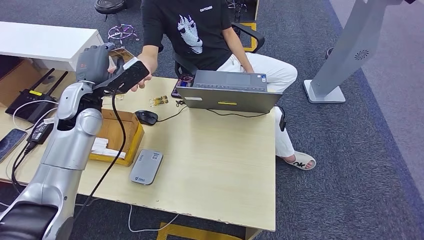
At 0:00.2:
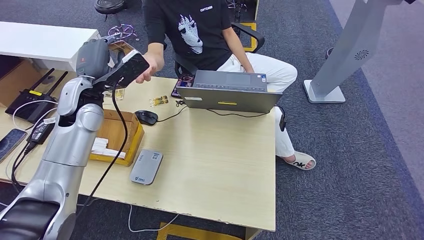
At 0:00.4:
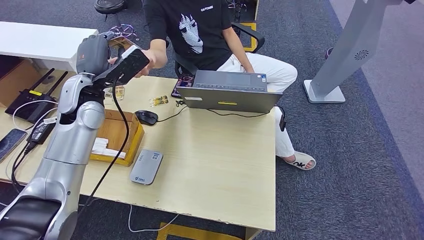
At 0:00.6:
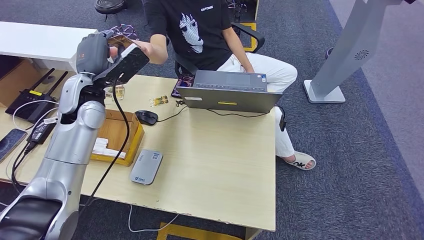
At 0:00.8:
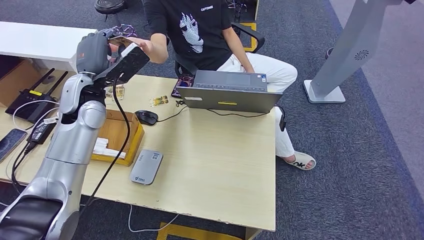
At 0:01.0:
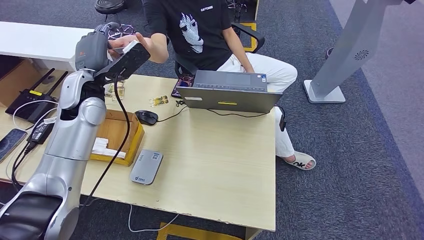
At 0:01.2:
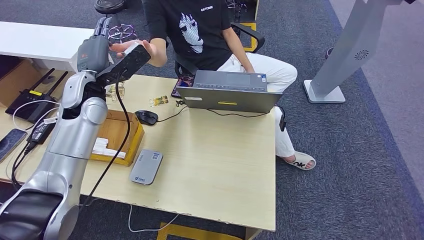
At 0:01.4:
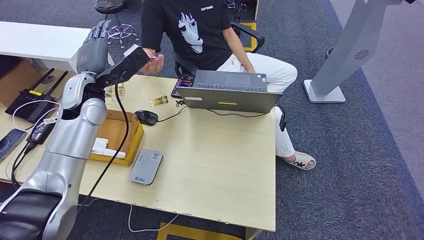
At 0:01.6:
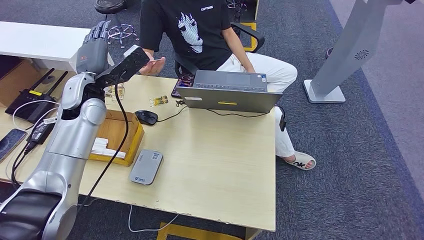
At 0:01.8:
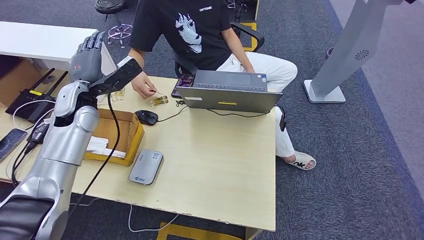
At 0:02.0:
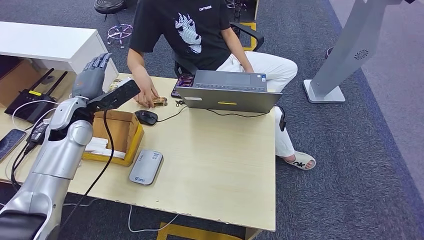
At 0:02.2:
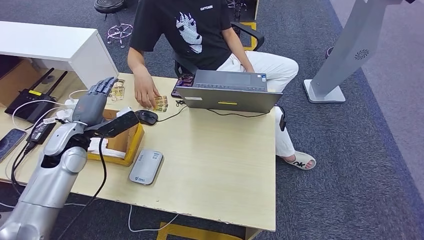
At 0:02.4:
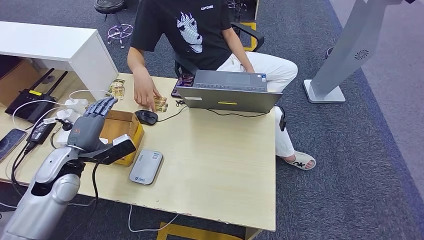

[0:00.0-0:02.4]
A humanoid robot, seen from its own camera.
Step, 0:00.0 to 0:02.2: Hand the room key to the person.
0:00.0 to 0:01.2: The hands move only a little.
0:01.2 to 0:02.4: The left hand travels backward, downward and to the left by some 20 cm.

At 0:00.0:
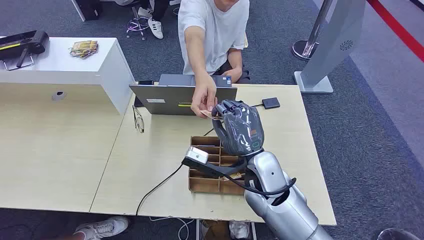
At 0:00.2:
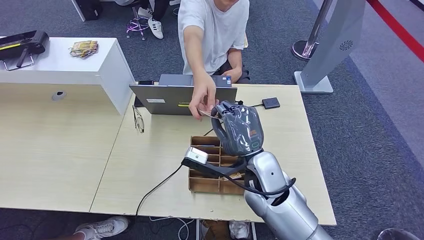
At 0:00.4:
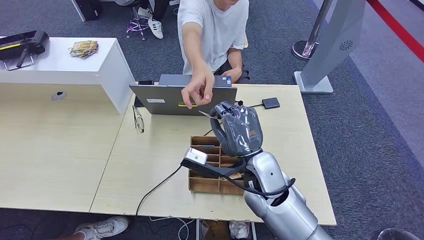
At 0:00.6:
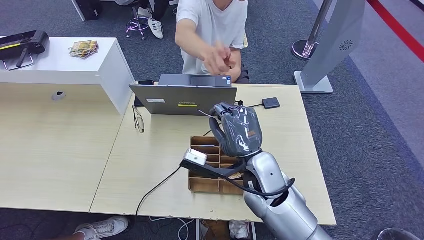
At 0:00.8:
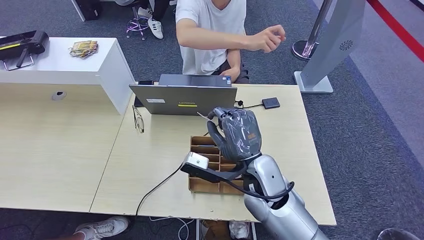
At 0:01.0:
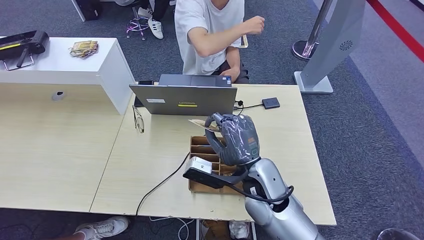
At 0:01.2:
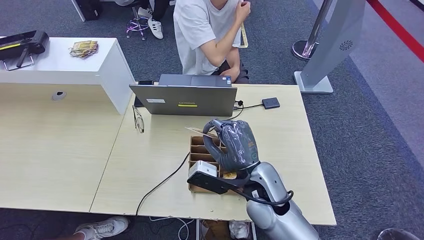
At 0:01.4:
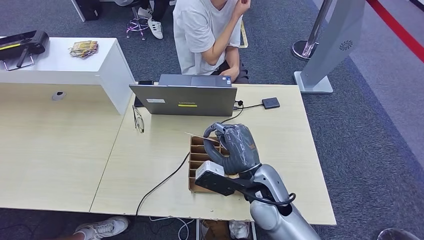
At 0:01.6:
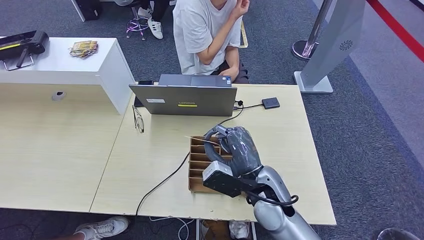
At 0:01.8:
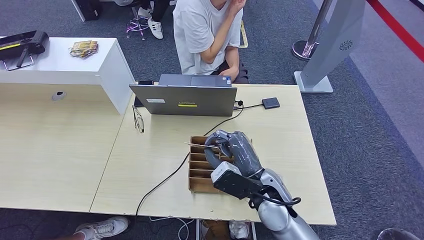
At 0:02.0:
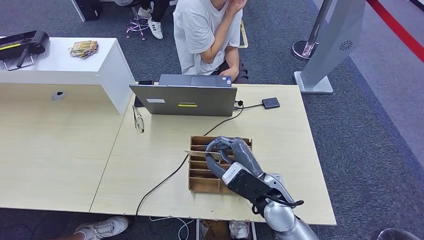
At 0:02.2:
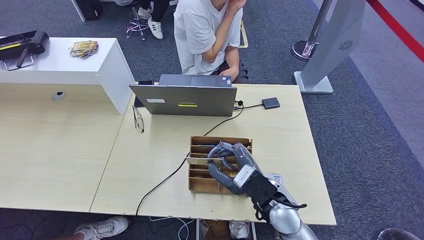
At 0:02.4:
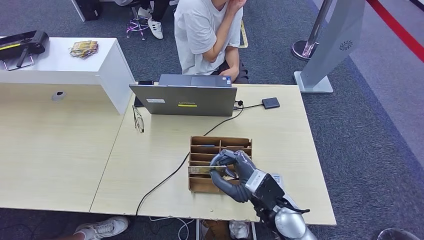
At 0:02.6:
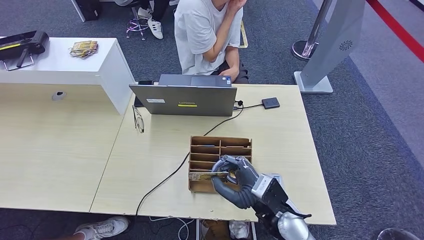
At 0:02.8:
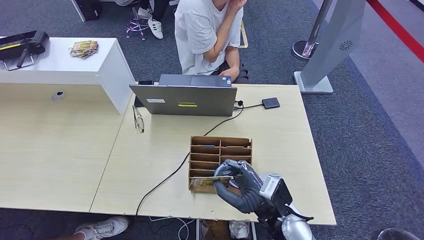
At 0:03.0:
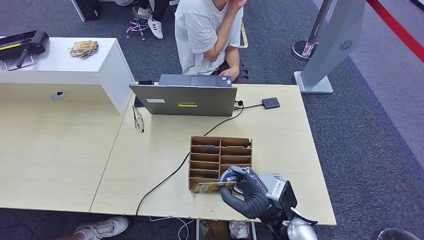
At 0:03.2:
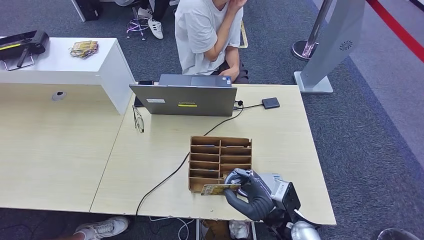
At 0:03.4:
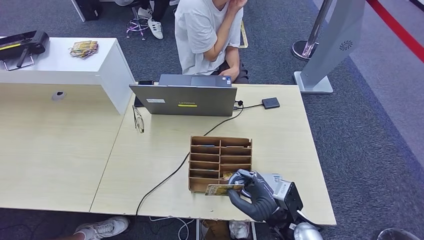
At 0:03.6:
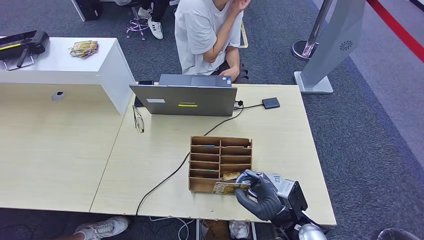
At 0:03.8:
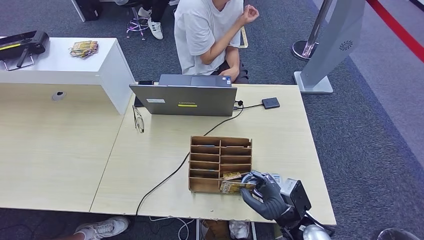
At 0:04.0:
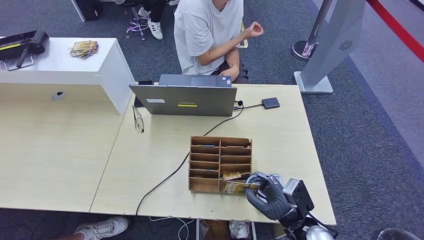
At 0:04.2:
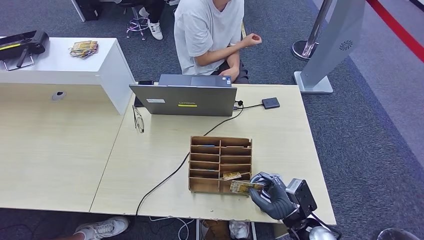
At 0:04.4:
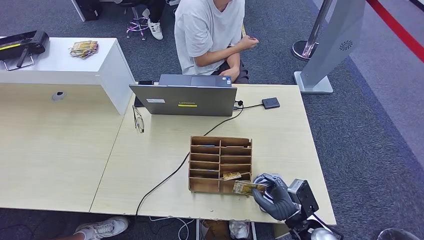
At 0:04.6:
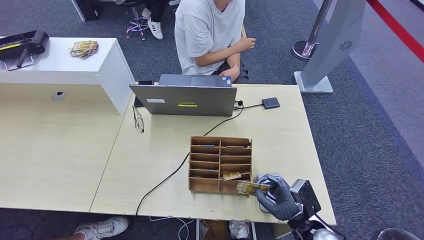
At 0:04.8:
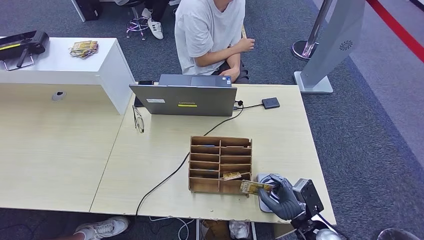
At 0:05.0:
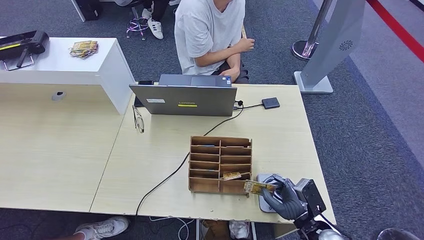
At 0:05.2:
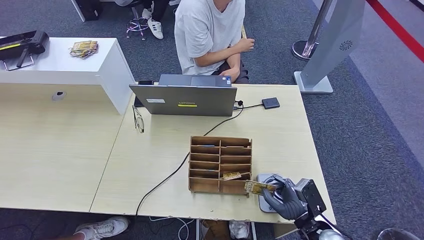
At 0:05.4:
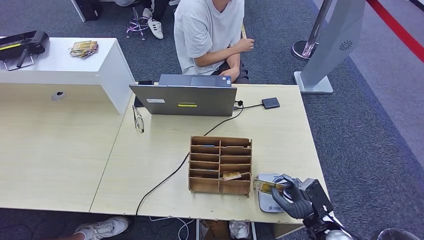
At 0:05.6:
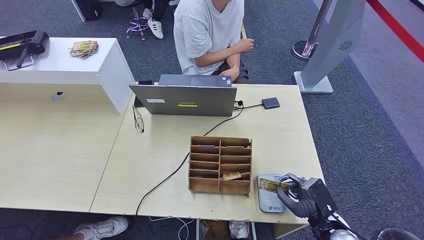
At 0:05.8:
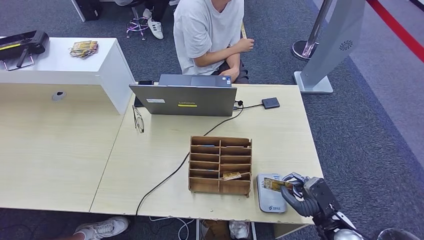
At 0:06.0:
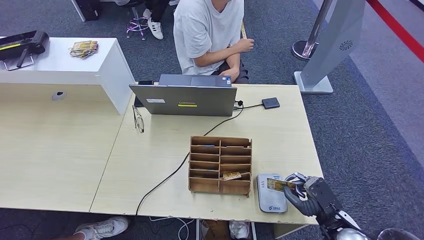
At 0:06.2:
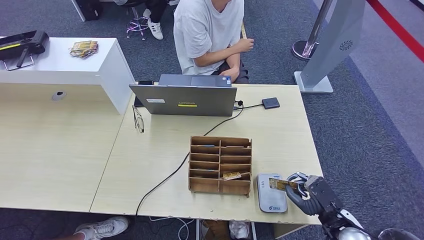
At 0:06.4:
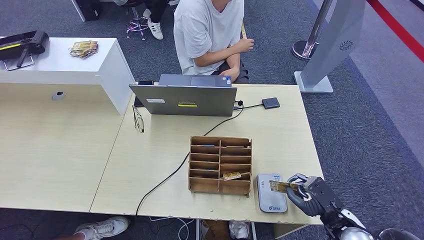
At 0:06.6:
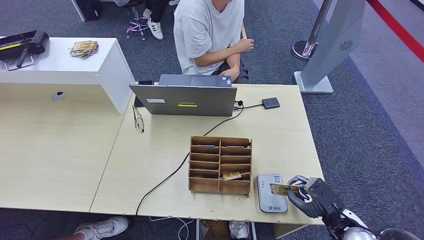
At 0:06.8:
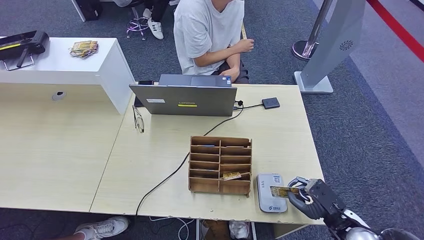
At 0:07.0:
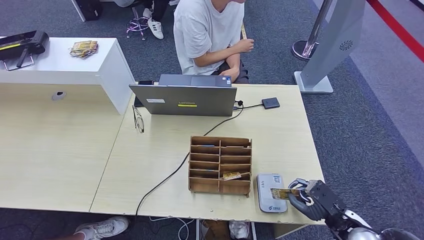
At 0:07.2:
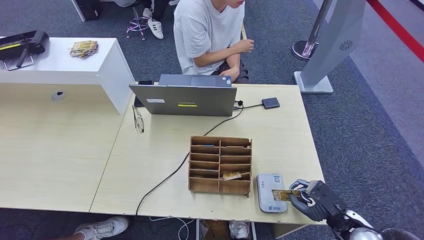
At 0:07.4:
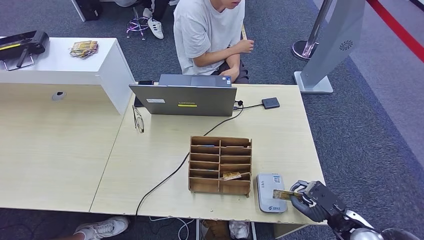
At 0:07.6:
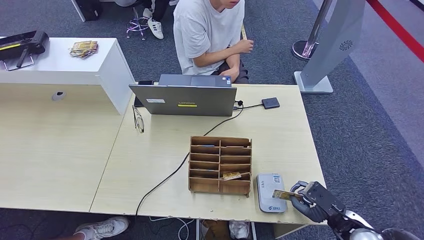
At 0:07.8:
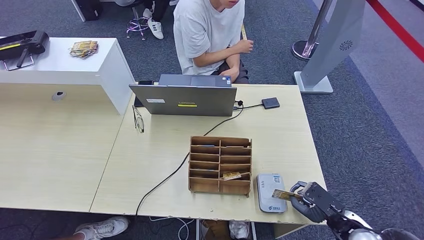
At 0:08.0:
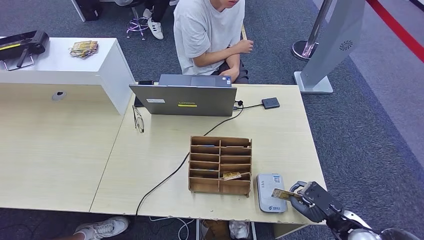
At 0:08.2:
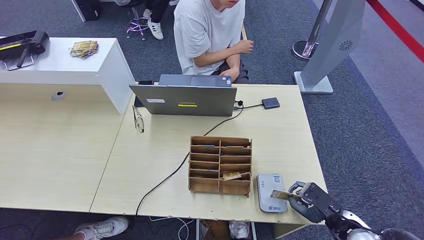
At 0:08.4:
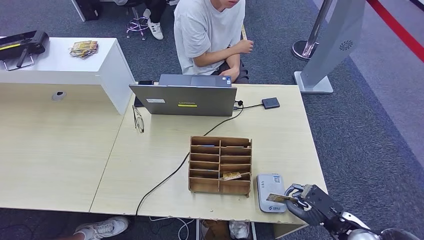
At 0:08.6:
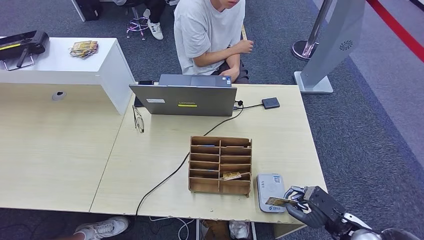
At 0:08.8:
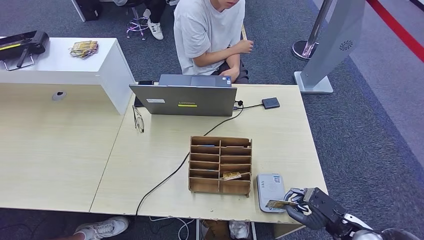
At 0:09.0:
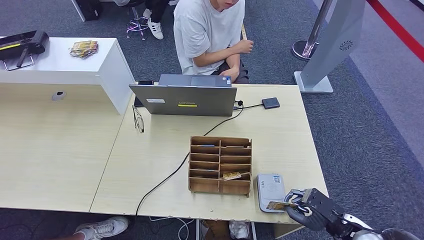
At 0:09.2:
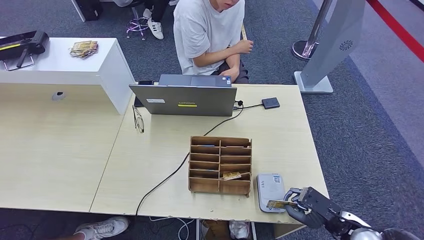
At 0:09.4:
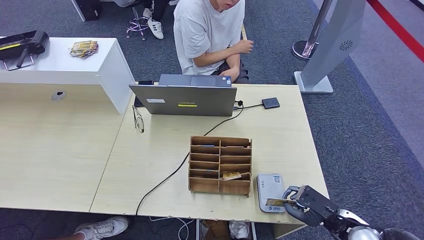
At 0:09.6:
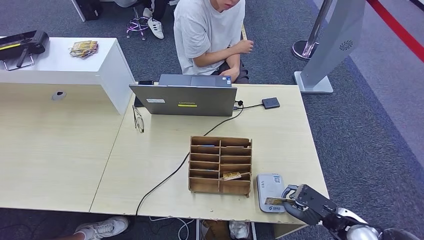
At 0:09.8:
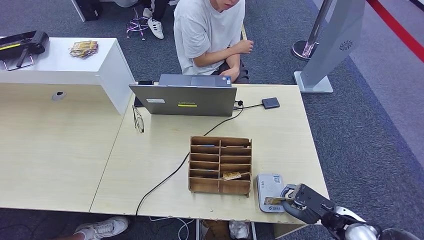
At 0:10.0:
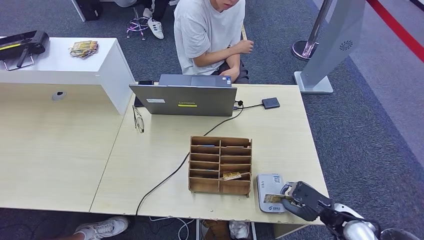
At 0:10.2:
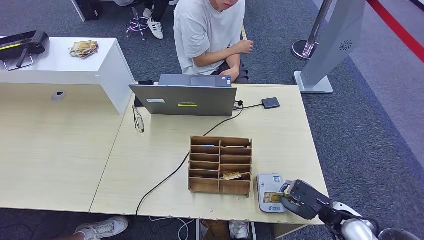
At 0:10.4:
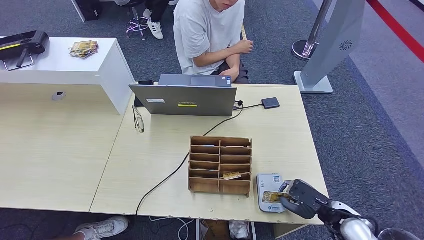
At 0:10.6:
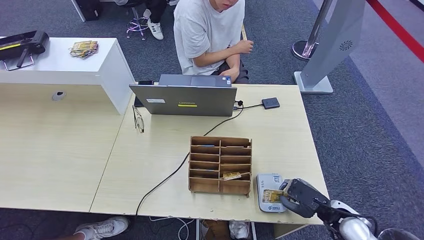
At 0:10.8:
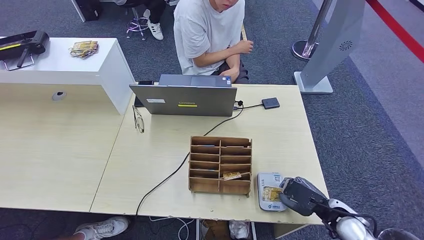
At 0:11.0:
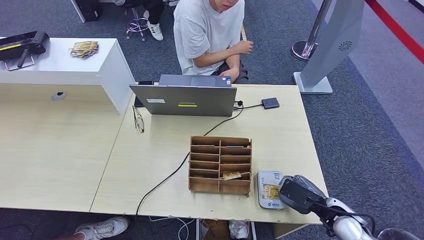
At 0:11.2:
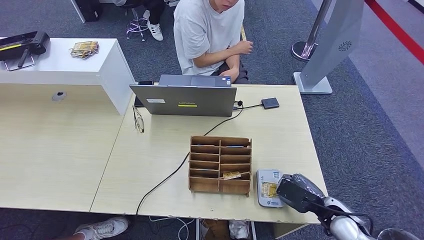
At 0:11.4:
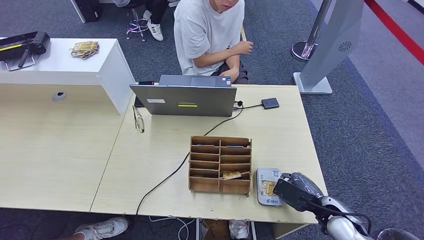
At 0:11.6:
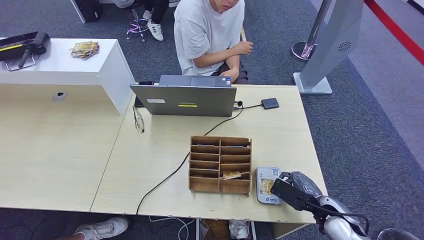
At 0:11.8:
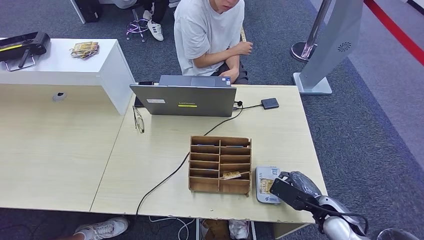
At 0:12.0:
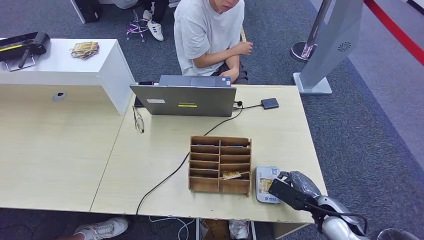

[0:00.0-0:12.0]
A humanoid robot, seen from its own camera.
Step, 0:00.0 to 0:01.2: Take the ID card from the person's hand.
0:01.6 to 0:03.0: The right hand heads downward, backward and to the right, covering approximately 10 cm.
0:03.0 to 0:04.4: The right hand travels to the right and downward by roughly 10 cm.
0:04.4 to 0:06.0: The right hand shifts roughly 10 cm to the right.
0:06.0 to 0:09.0: The hands make only small movements.
0:09.0 to 0:10.4: The hands make only small movements.

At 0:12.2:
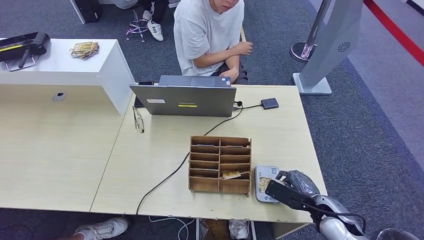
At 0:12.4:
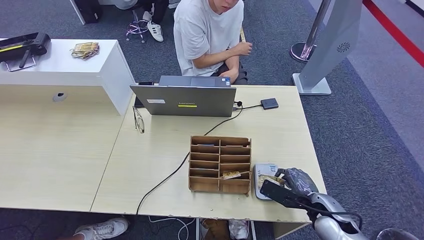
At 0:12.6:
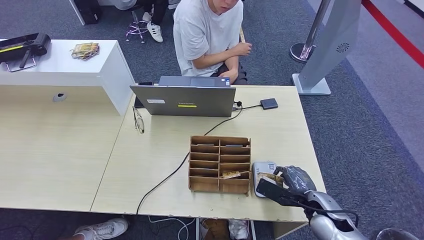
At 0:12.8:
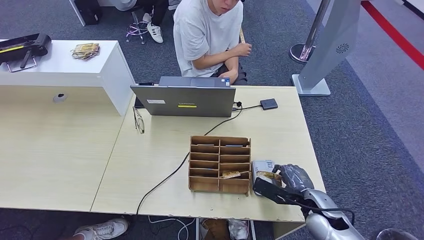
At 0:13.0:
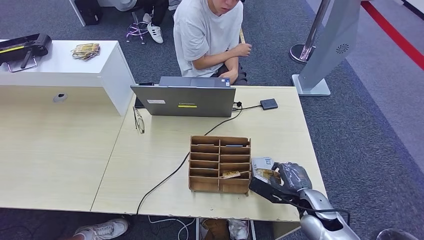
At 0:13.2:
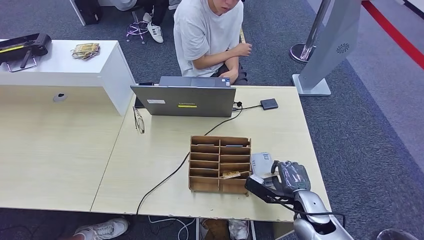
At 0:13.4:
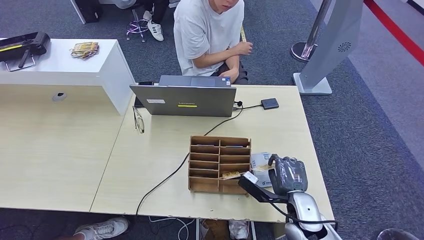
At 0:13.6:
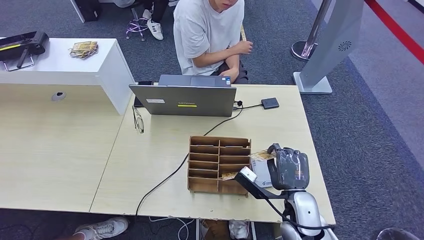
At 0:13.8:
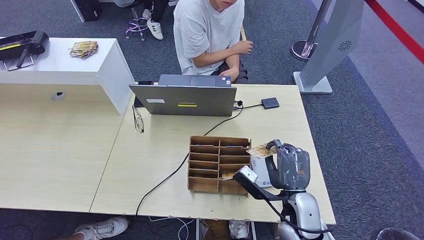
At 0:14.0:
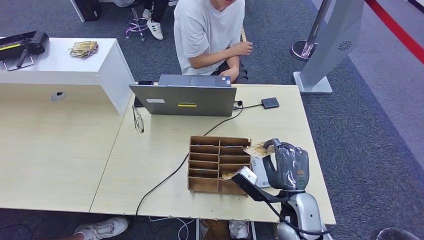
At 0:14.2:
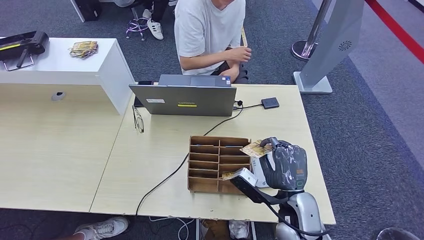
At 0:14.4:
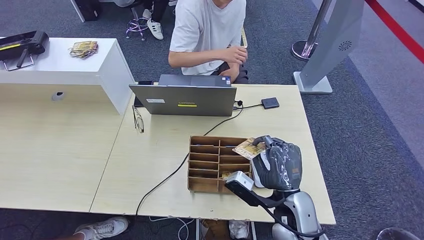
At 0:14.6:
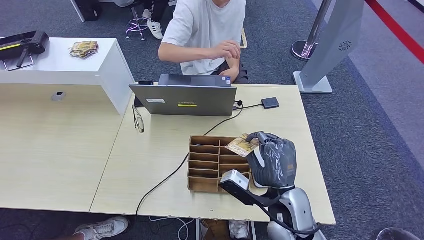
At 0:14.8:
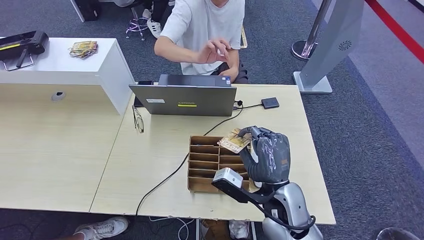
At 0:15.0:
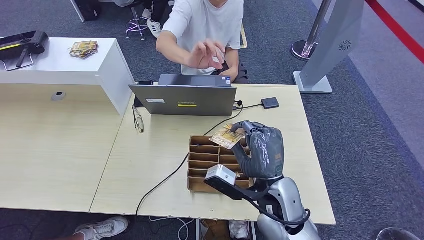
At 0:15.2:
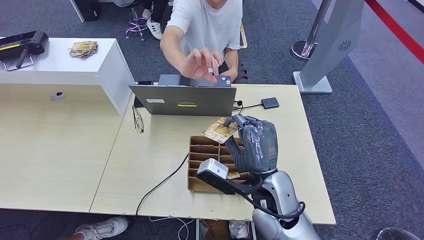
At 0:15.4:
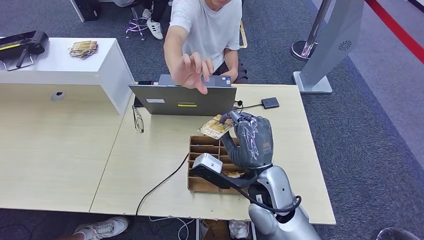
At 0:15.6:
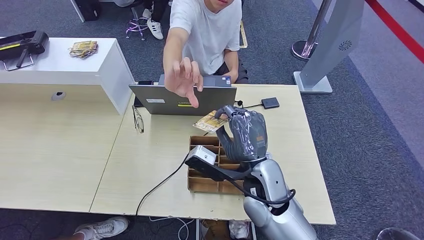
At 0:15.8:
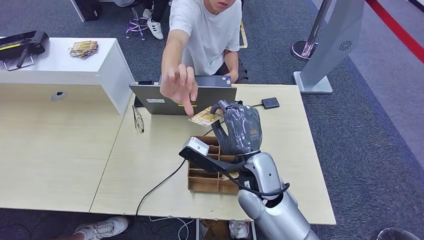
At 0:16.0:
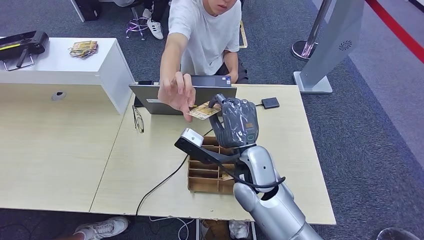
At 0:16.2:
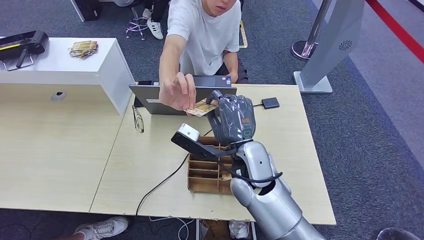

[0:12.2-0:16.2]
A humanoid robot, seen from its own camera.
Step, 0:12.2 to 0:14.2: Place the ID card on the card reader.
0:12.2 to 0:13.6: The right hand shifts approximately 10 cm to the left.
0:13.6 to 0:14.8: The right hand shifts about 10 cm upward and to the left.
0:14.8 to 0:16.2: The right hand moves forward, to the left and upward, approximately 10 cm.
